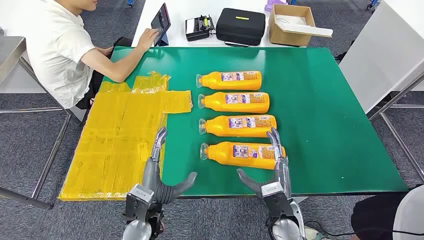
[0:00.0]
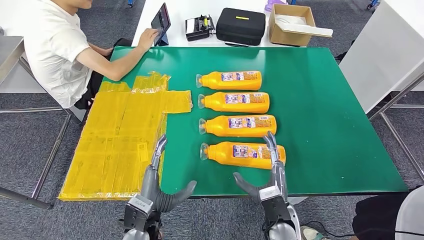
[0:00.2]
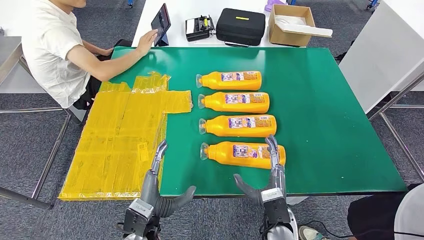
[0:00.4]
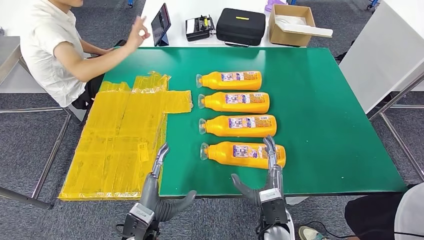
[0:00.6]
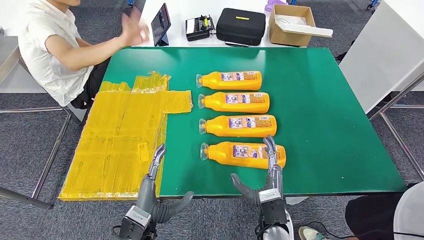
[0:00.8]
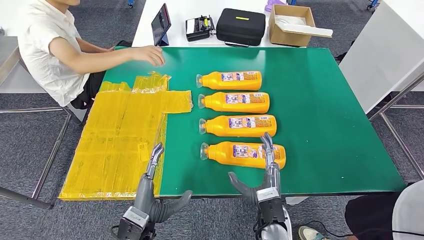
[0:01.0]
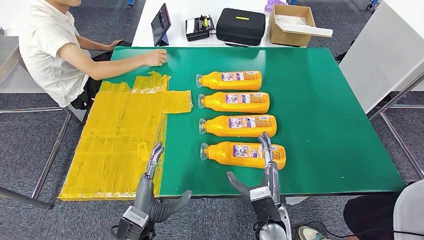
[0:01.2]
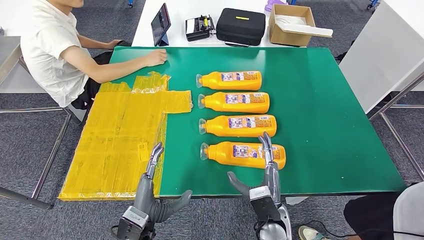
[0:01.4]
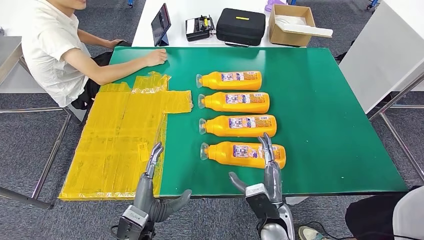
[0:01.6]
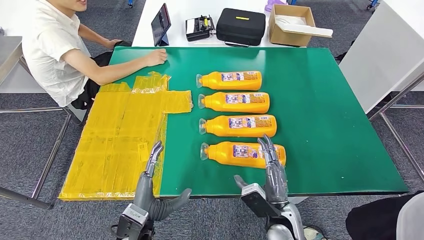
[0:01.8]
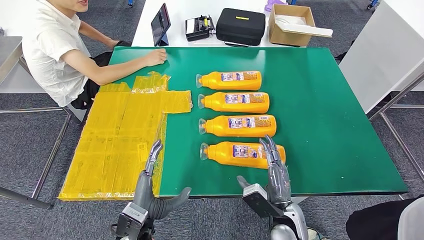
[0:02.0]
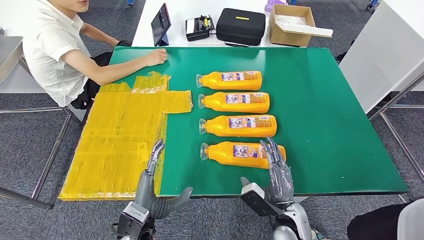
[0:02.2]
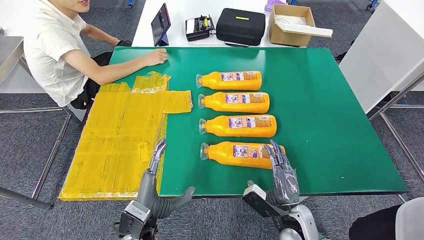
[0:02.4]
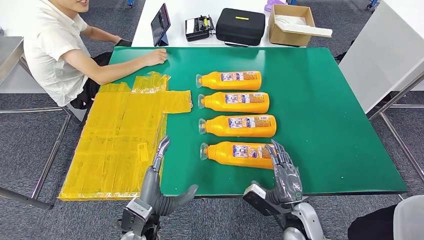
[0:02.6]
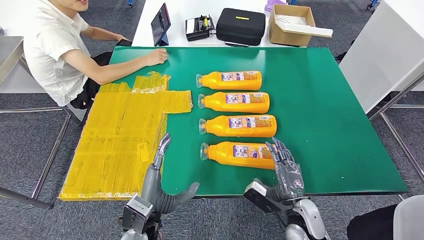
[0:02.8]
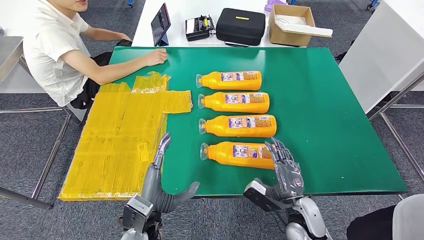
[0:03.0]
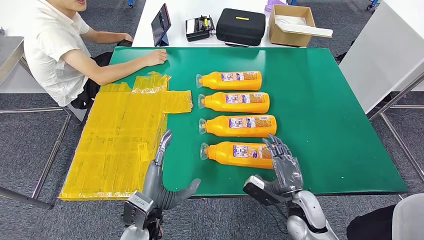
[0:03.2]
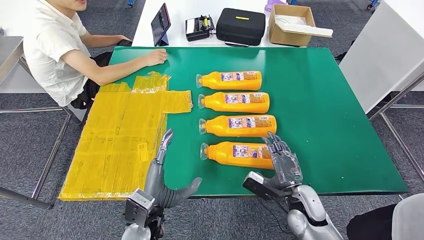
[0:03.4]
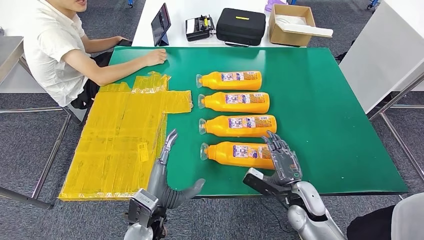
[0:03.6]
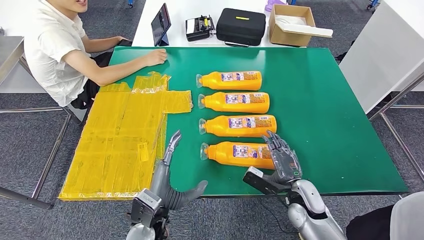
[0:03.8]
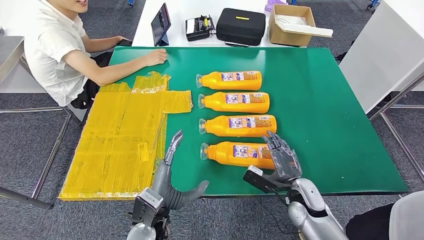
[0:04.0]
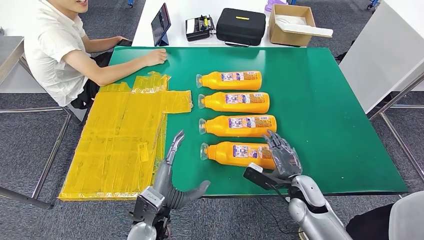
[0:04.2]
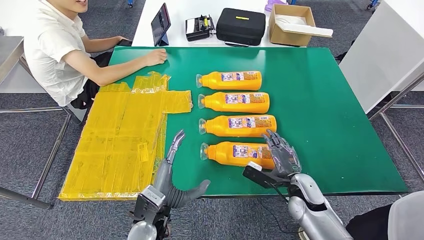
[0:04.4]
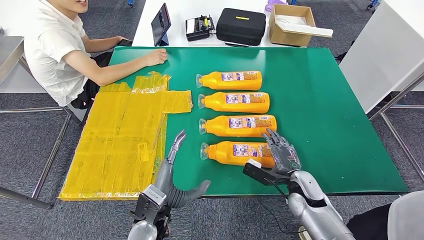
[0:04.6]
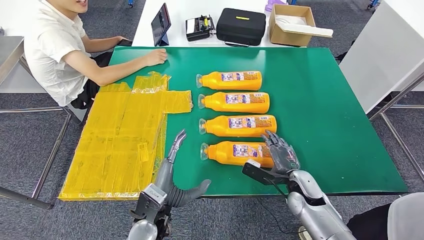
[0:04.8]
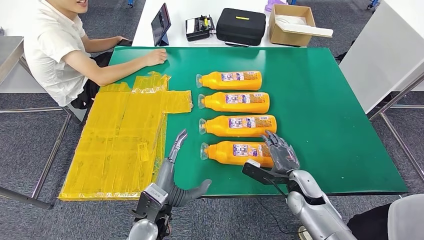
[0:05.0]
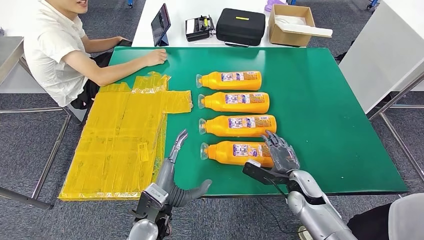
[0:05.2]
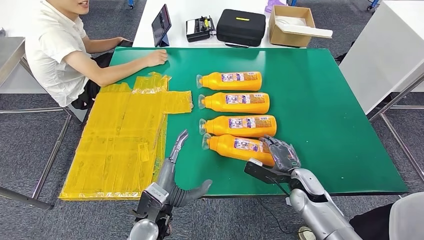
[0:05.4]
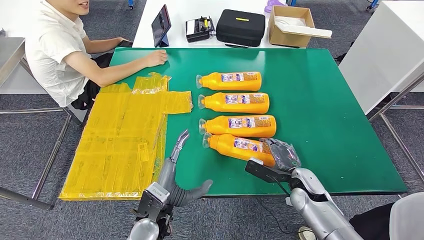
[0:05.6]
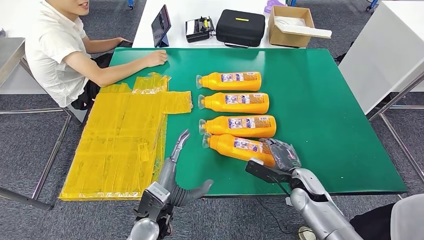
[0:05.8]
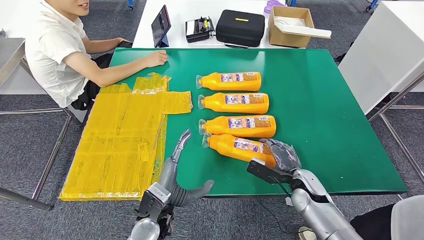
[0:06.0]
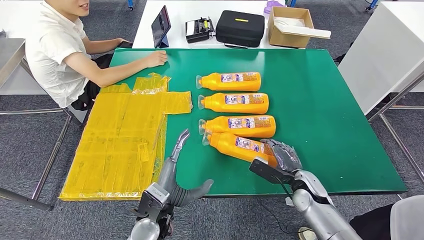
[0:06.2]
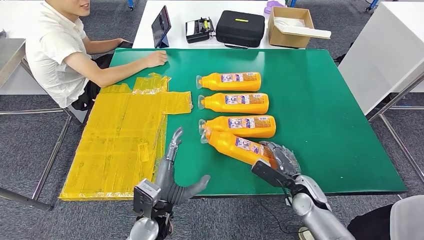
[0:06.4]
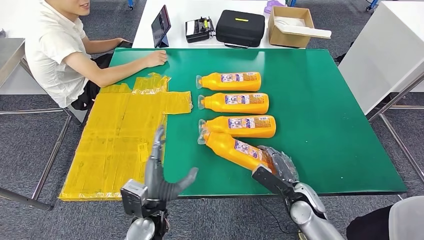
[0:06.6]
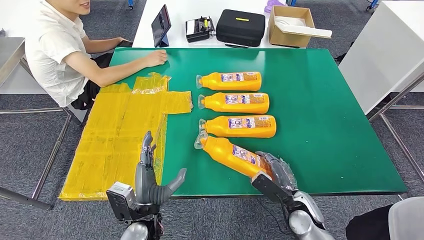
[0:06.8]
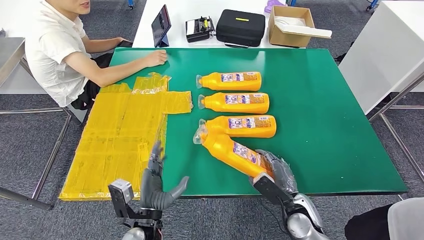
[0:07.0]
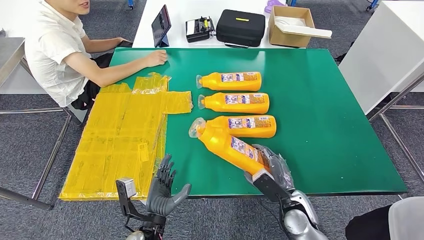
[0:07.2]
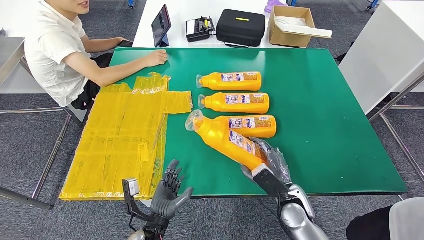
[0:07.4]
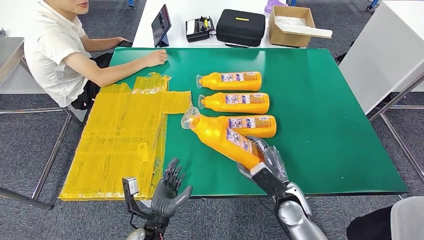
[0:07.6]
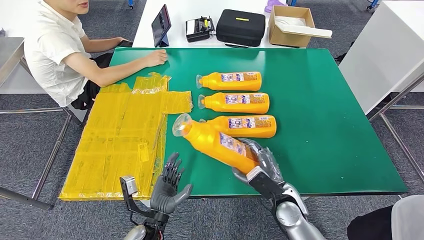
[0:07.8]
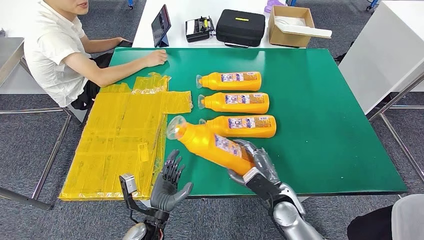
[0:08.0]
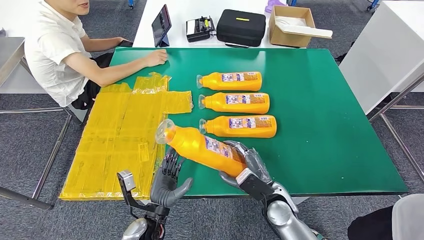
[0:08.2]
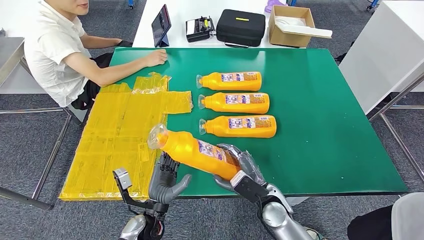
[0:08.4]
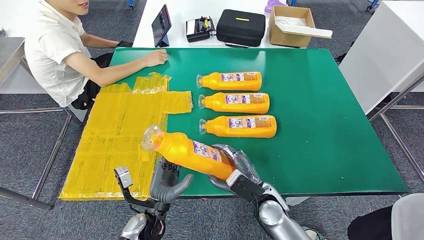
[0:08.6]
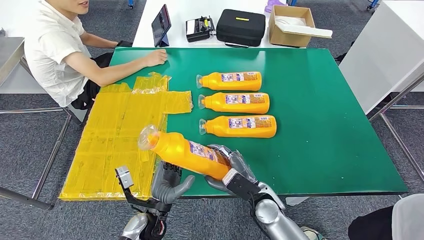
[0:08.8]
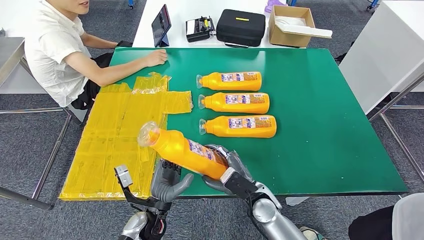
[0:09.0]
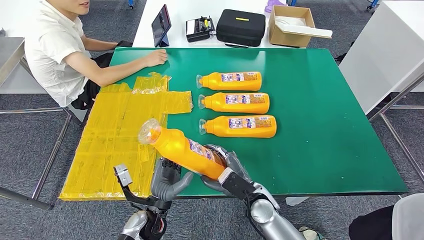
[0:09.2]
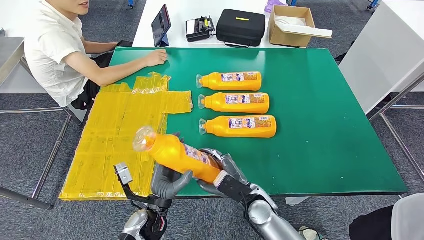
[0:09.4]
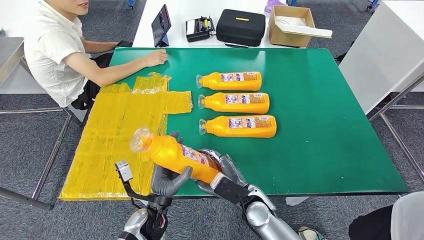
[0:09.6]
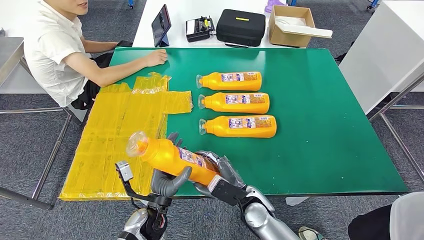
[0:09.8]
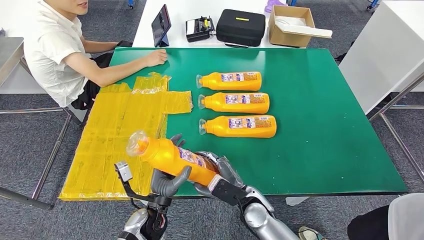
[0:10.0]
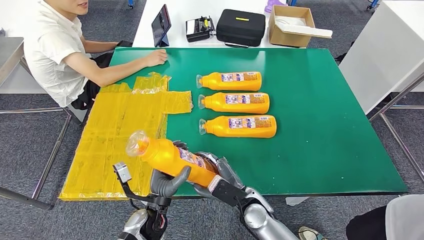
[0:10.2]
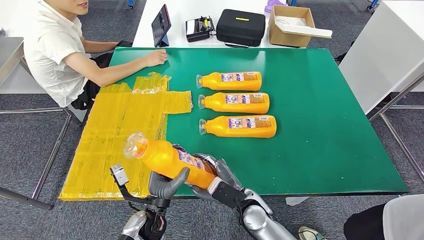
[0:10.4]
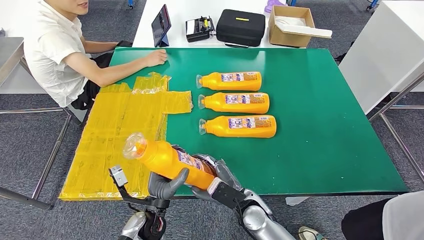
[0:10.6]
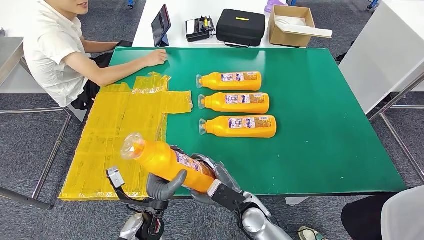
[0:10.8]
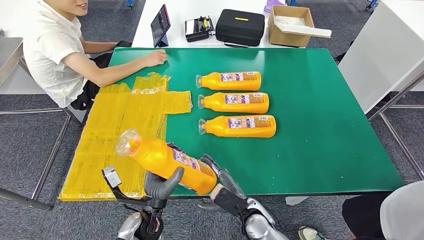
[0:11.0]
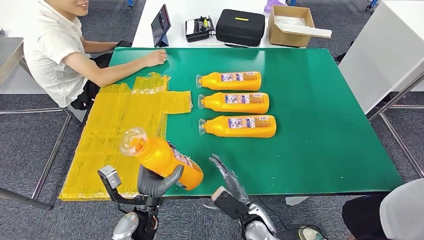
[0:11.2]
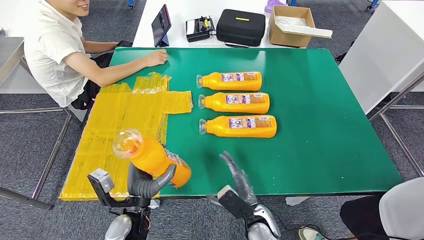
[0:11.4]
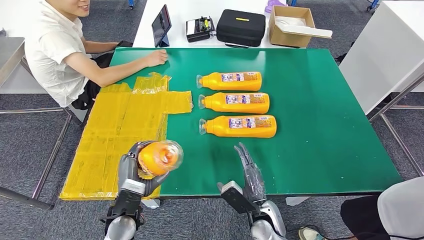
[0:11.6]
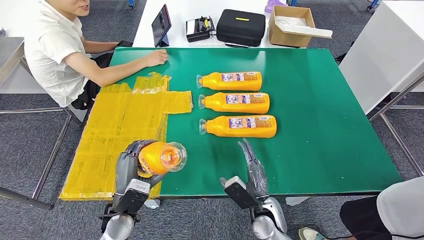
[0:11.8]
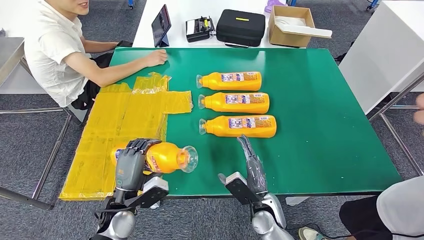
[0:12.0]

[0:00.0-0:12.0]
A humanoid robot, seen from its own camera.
Step, 0:00.0 to 0:08.2: Take the fast-moving consumer goods bottle from the table.
0:01.6 to 0:03.0: The right hand moves to the right, approximately 10 cm.
0:03.0 to 0:04.4: The right hand shifts some 5 cm forward.
0:04.4 to 0:06.0: The hands stay close to where they were, moving slightly.
0:06.0 to 0:07.6: The right hand heads to the left, covering about 5 cm. The left hand heads downward, covering about 10 cm.
0:07.6 to 0:09.0: The right hand travels to the left by approximately 10 cm. Meanwhile the left hand moves about 5 cm.
0:09.0 to 0:10.4: The hands make only small movements.
0:10.4 to 0:12.0: The left hand travels to the left by about 10 cm.

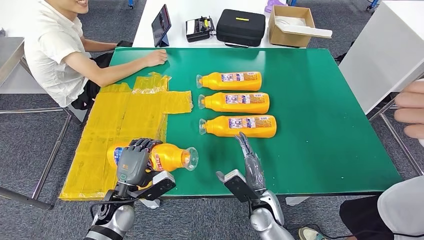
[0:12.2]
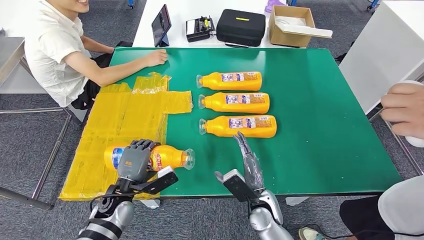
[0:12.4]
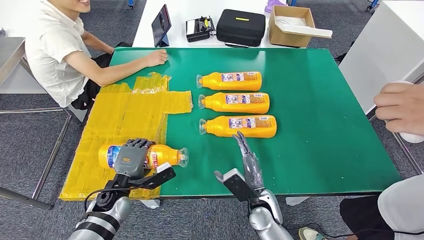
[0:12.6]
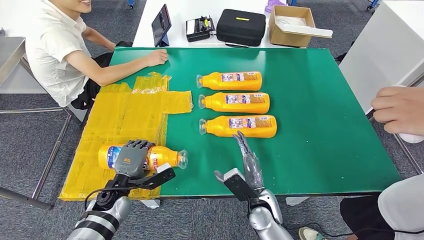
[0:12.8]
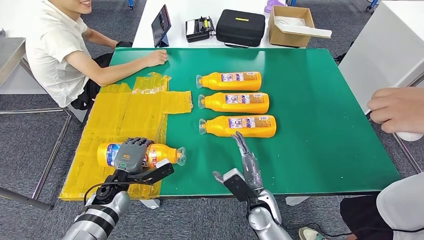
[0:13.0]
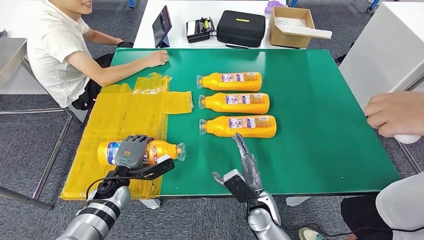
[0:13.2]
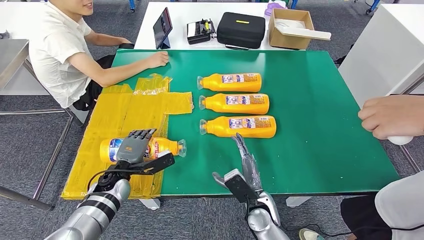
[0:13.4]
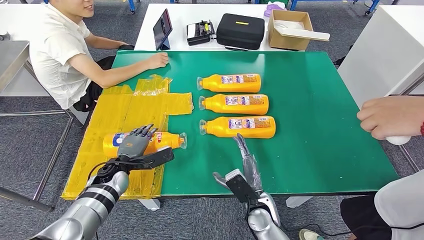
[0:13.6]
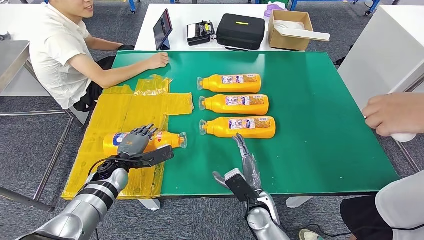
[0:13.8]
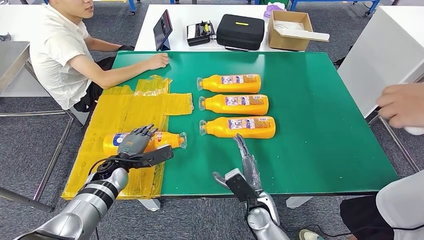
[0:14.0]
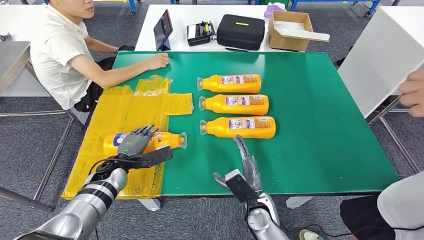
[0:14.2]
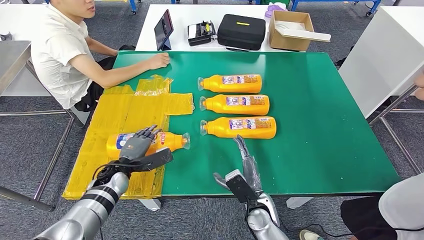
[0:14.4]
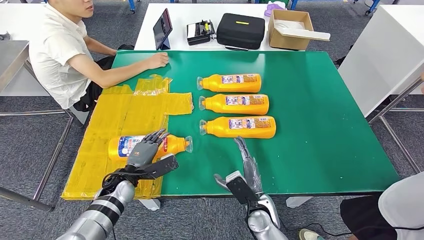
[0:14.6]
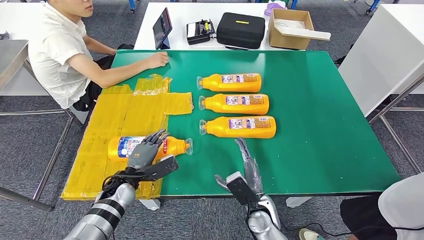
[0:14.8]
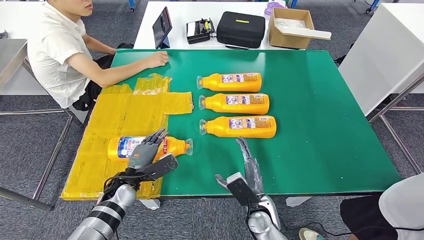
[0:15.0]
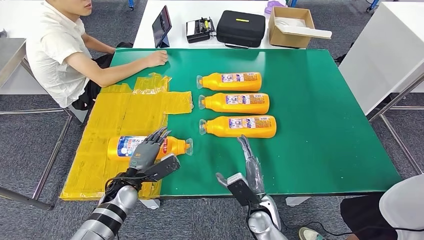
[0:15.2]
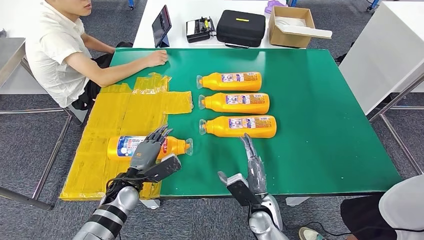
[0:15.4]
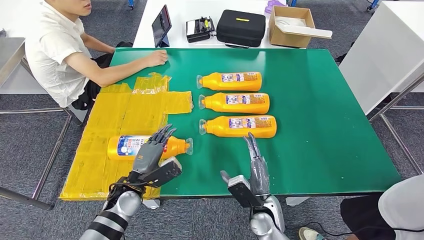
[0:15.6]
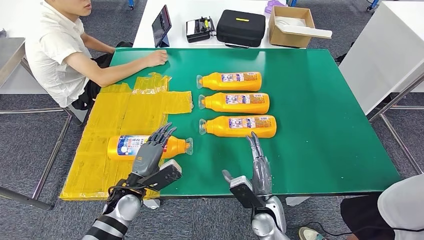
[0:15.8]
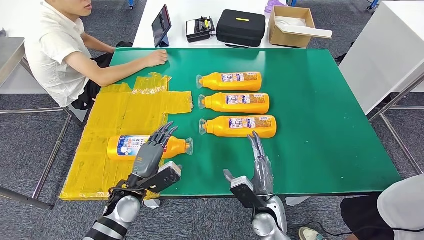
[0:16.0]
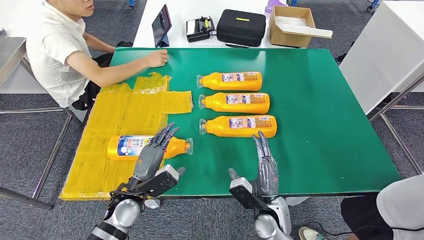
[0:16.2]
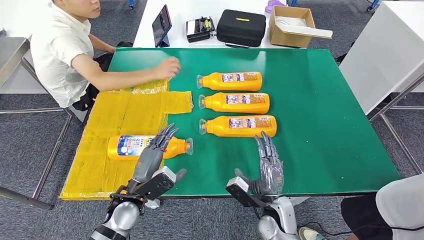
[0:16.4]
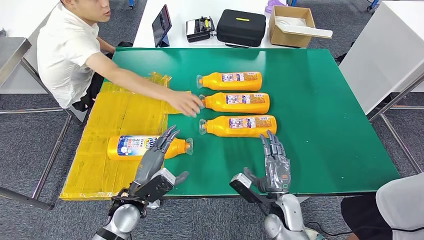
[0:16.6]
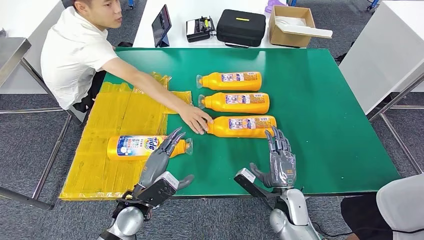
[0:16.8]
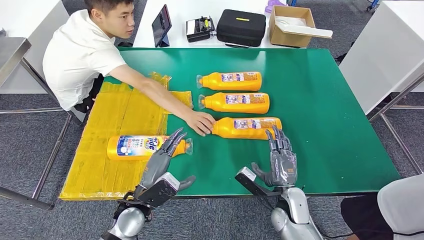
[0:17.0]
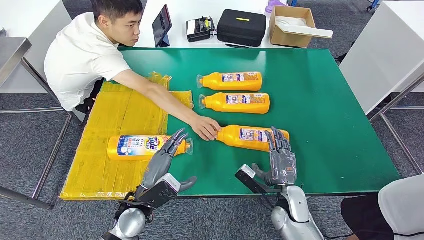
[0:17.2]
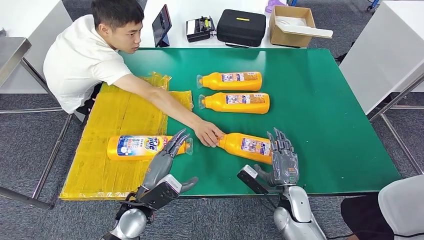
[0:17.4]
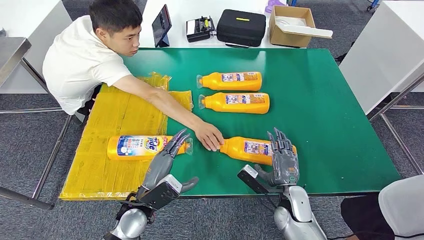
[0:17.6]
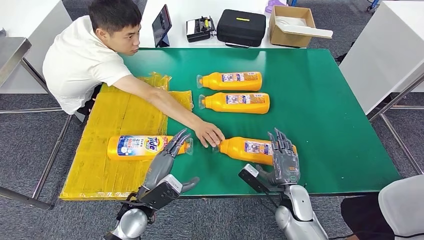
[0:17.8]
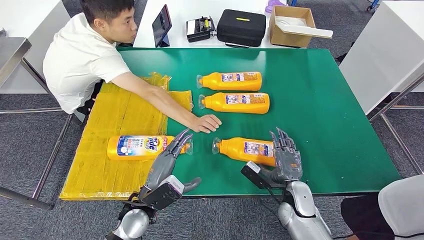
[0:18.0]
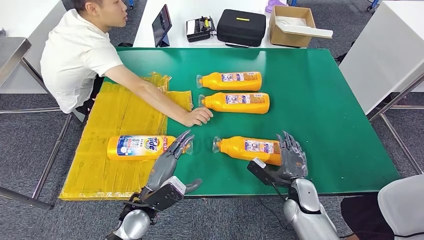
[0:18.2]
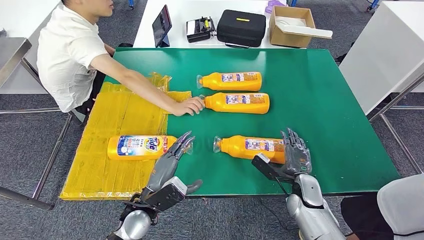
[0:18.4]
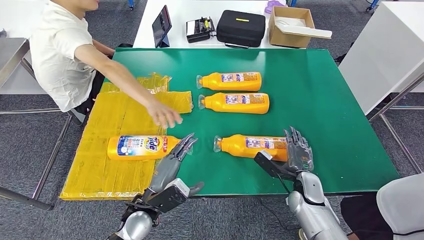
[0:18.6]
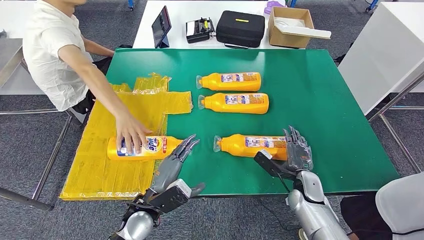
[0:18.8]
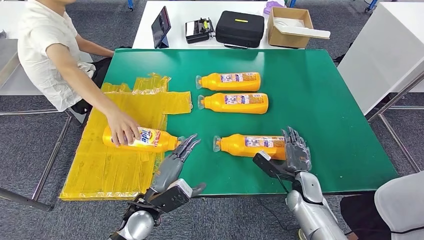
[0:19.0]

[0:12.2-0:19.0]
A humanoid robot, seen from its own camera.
Step, 0:12.2 to 0:16.6: Flip the fast-moving consumer goods bottle to the front side.
0:15.0 to 0:16.2: The left hand shifts some 5 cm backward.
